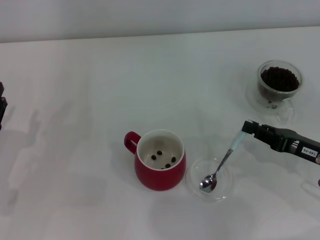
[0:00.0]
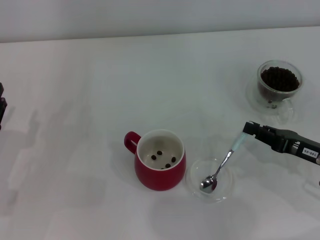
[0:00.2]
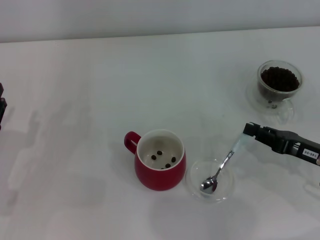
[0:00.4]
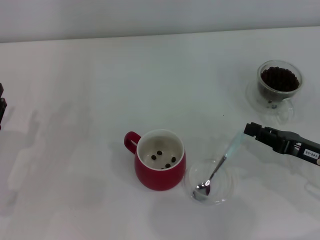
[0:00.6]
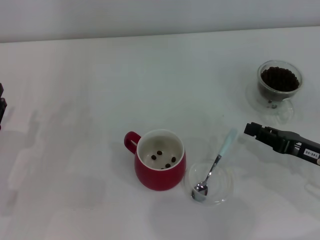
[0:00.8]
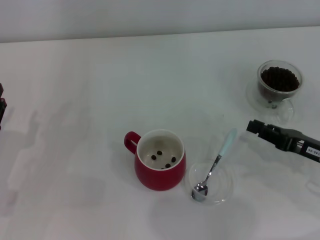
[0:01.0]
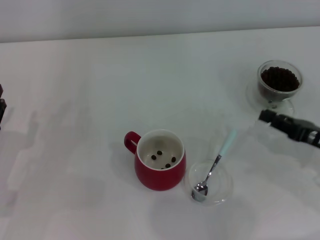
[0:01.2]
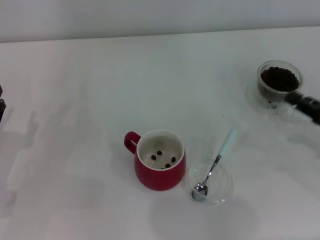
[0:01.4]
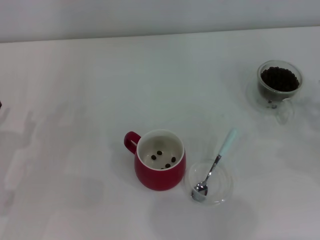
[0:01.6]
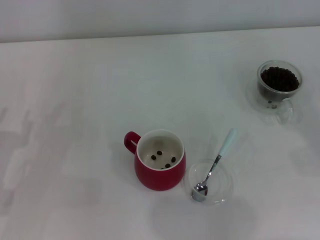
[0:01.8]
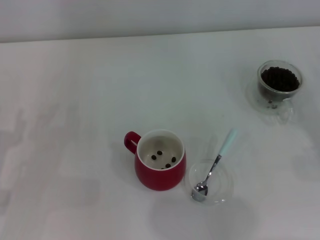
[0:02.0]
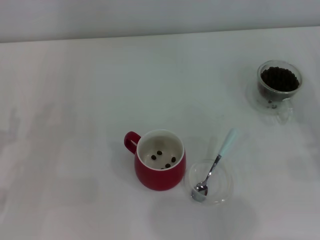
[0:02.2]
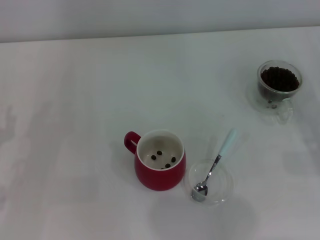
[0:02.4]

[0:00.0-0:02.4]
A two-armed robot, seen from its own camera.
Task of the whole recording: Use a blue spoon to take out the coffee beans from the glass and pour them into the red cup.
0:00.0 to 0:01.2: The grippers make only small movements.
0:01.2 to 0:02.4: The right gripper goes roughly 5 cm to the right.

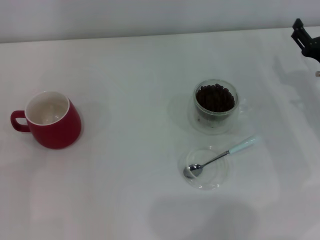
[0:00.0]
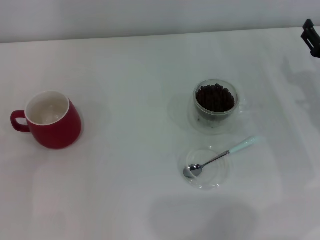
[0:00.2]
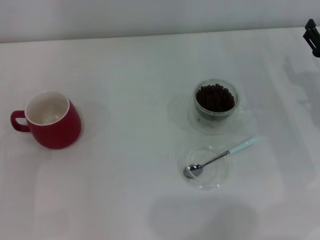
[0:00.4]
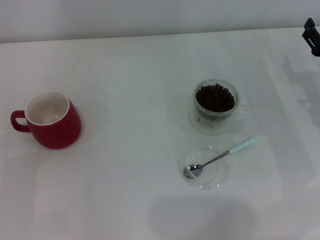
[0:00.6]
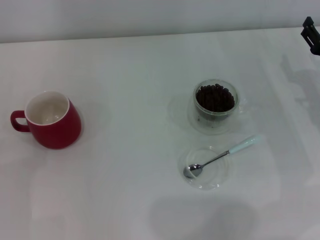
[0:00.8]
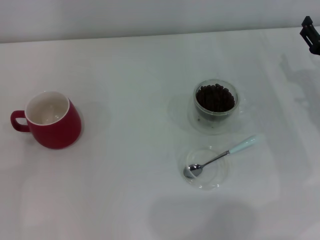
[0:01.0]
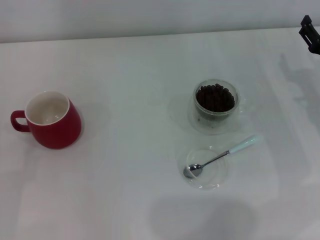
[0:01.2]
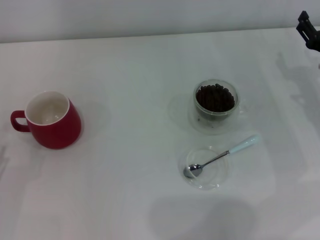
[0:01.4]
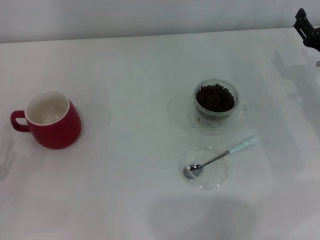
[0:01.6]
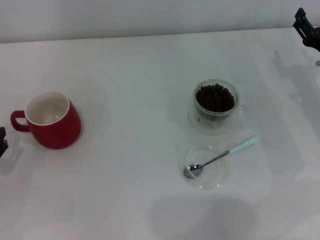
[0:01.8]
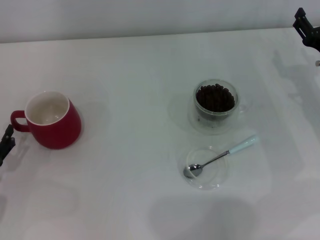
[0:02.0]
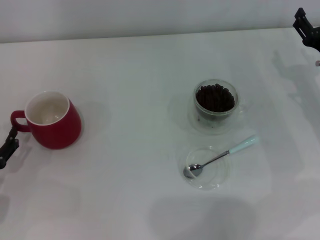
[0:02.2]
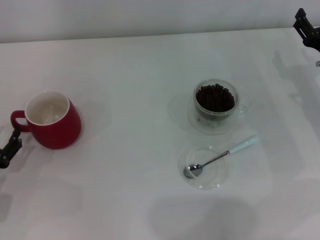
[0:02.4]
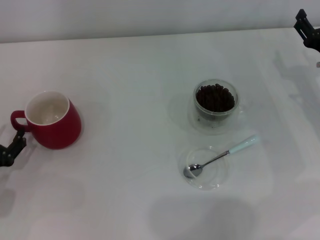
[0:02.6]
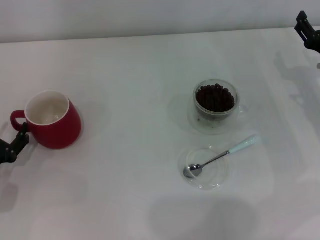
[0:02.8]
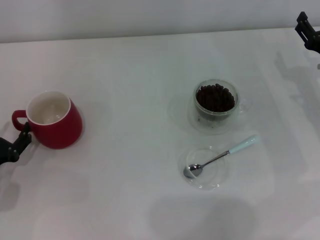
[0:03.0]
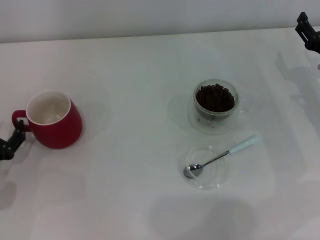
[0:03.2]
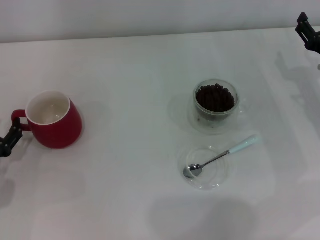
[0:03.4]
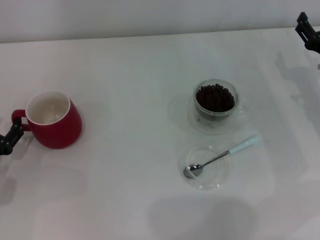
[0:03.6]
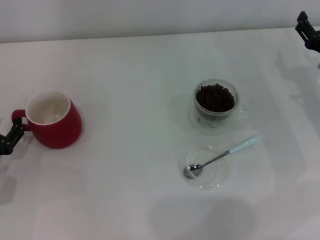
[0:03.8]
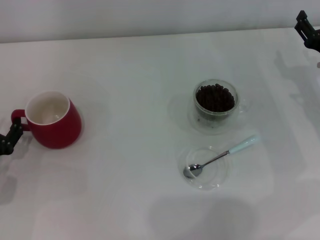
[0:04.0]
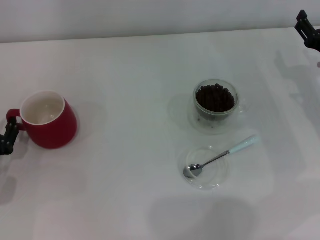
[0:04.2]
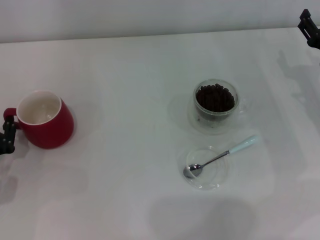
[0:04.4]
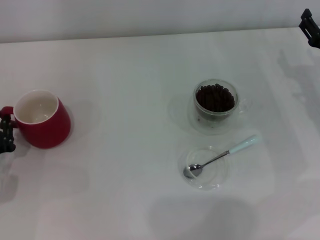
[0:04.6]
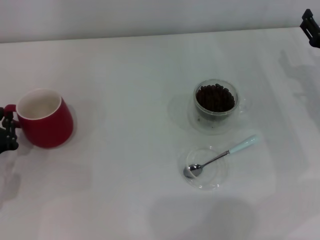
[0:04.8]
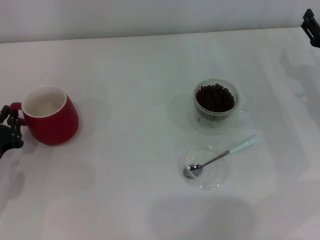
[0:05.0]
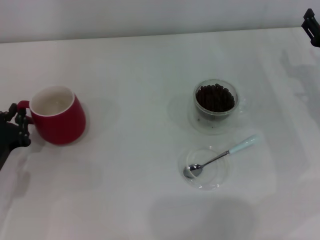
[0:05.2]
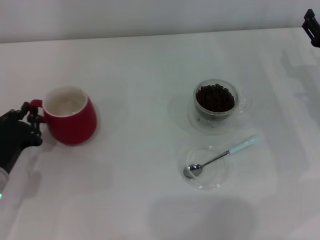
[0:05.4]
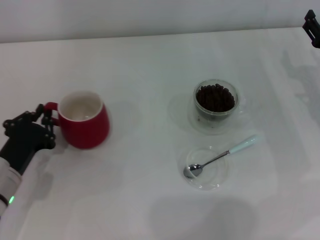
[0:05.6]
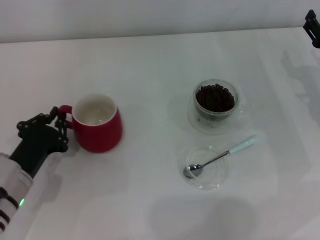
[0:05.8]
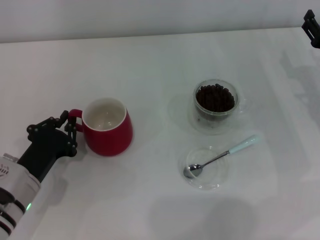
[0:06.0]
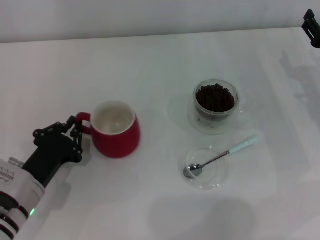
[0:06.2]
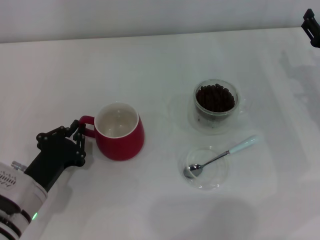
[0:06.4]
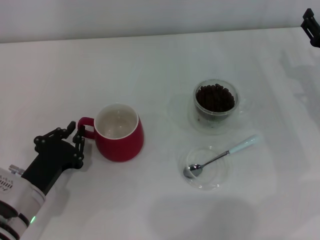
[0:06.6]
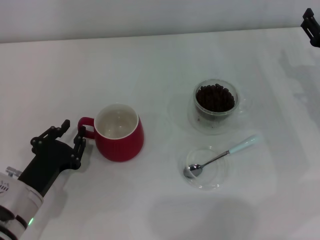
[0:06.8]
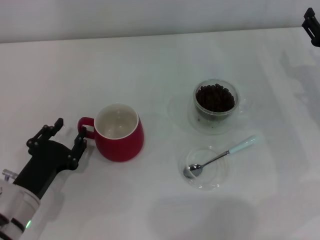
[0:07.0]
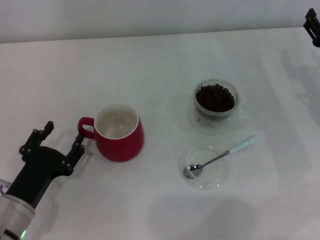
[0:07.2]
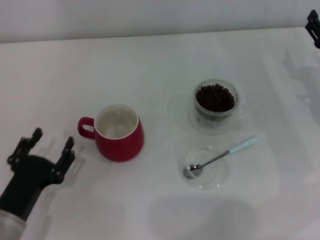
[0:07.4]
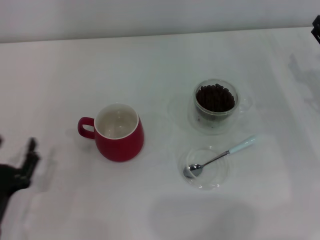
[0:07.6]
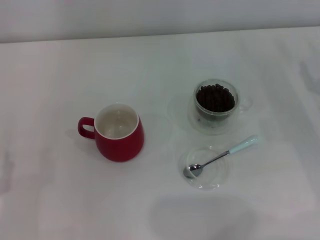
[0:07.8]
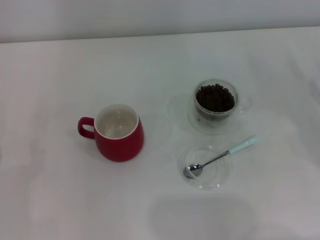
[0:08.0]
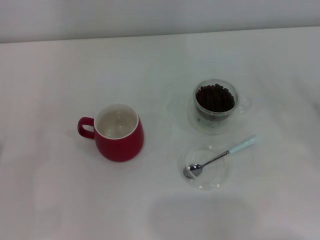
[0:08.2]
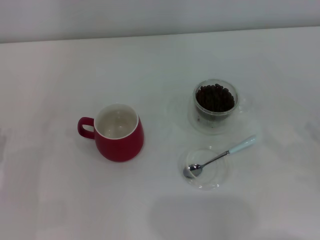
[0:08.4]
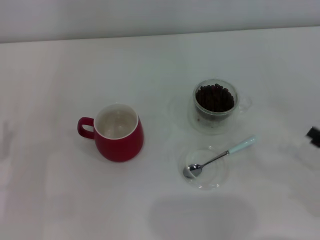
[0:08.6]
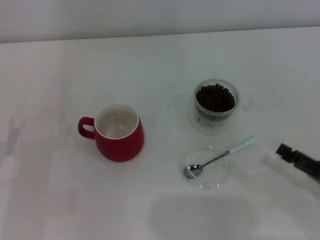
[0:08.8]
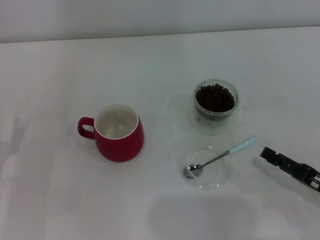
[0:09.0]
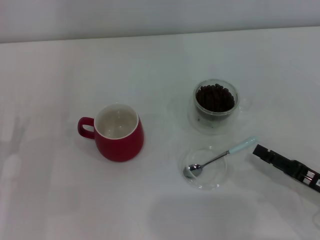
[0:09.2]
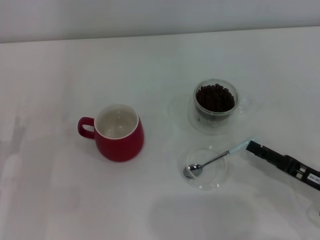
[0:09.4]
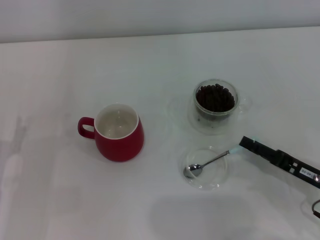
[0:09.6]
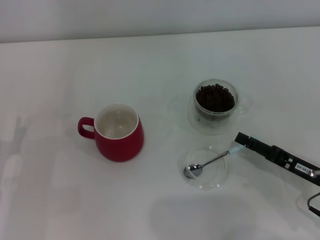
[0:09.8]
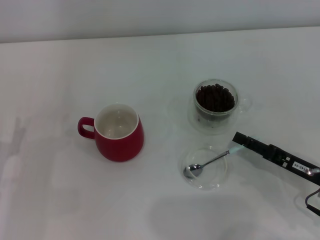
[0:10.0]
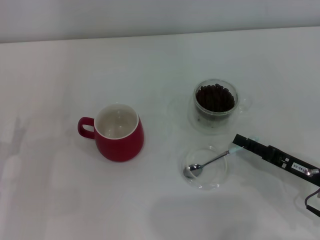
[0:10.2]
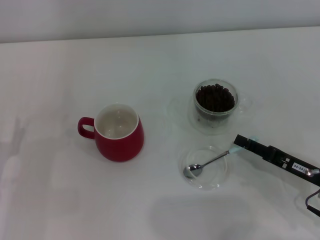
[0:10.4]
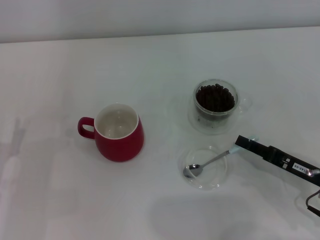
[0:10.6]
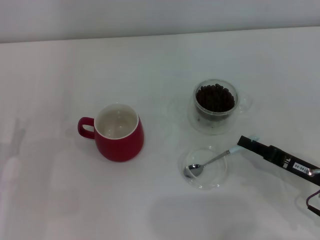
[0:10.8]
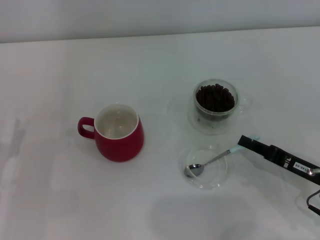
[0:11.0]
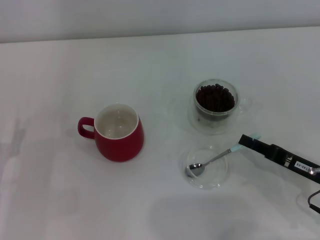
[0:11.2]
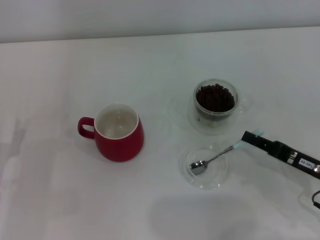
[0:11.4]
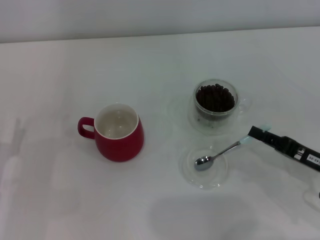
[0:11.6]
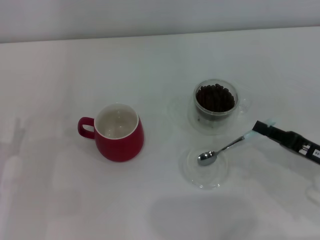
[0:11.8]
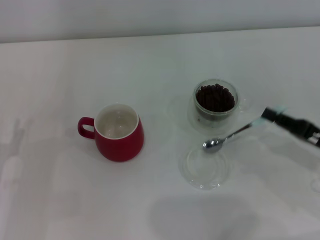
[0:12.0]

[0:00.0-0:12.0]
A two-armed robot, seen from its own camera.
Task of the whole recording: Use a blue spoon to take out the coffee beans from the glass and pour them into the red cup.
Step, 0:00.0 to 0:07.2: Move the cup to the center of view with the left gripper.
Step, 0:07.4 to 0:11.8: Pick up the spoon with the right gripper.
0:01.6 to 0:03.0: The left gripper changes place by some 5 cm.
0:03.0 to 0:04.4: The left gripper closes its fingers.
0:04.4 to 0:06.0: The left gripper moves to the right, roughly 10 cm, and closes its fingers.
0:06.0 to 0:07.6: The left gripper goes about 10 cm backward, and opens.
0:07.6 to 0:09.0: The left gripper travels forward by about 5 cm. The right gripper heads backward, covering some 15 cm.
0:09.0 to 0:10.4: The right gripper shifts by roughly 5 cm.
0:10.4 to 0:12.0: The right gripper ends up roughly 5 cm from where it was, and closes up.

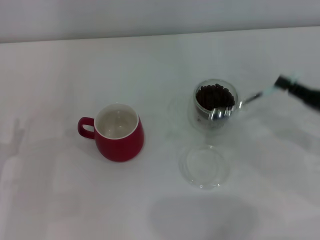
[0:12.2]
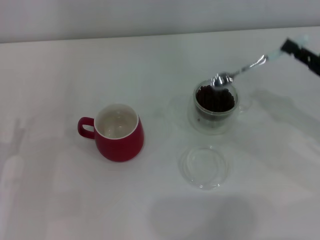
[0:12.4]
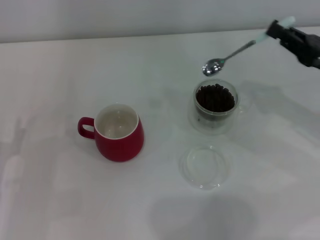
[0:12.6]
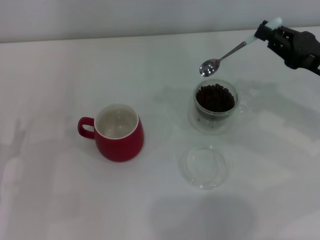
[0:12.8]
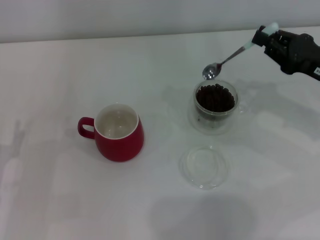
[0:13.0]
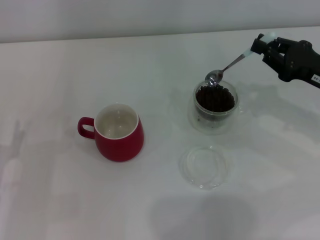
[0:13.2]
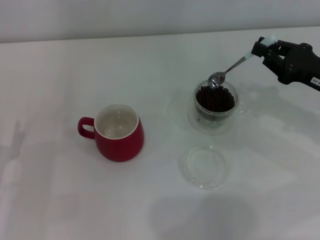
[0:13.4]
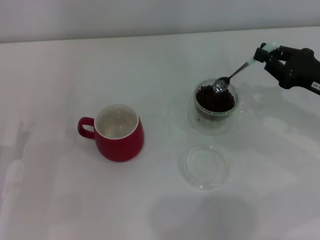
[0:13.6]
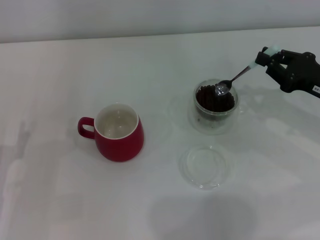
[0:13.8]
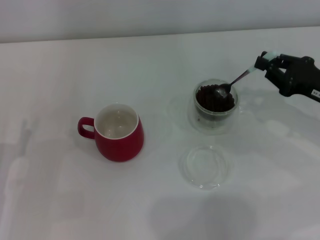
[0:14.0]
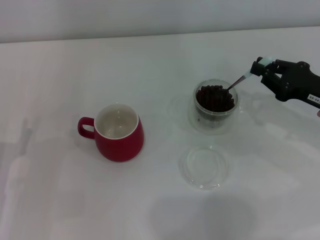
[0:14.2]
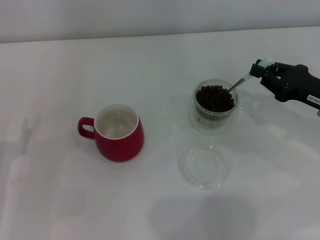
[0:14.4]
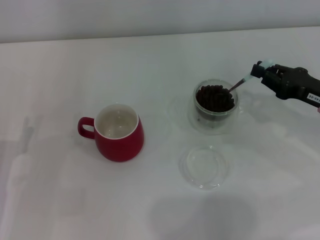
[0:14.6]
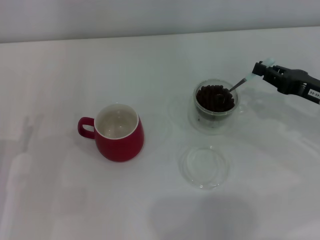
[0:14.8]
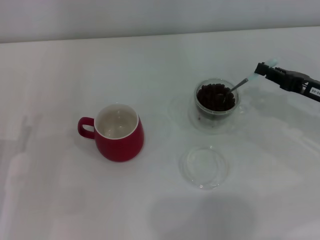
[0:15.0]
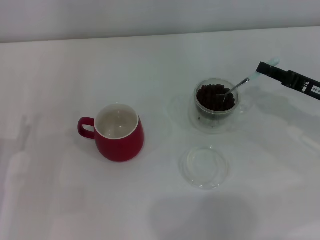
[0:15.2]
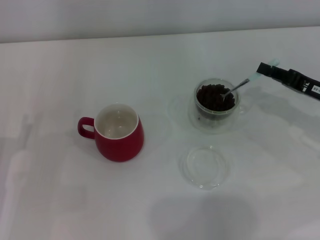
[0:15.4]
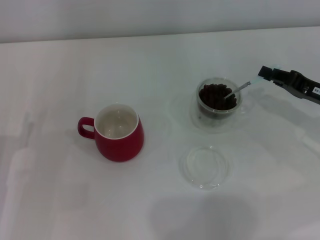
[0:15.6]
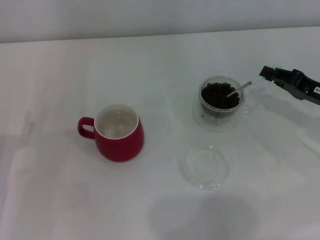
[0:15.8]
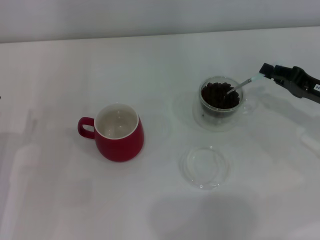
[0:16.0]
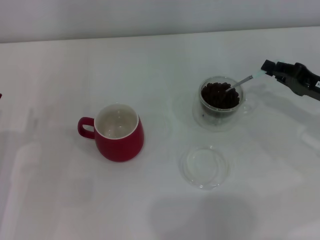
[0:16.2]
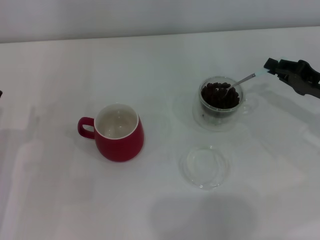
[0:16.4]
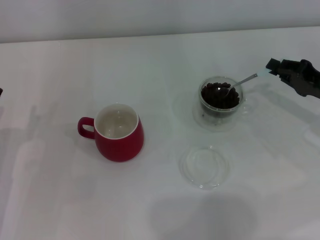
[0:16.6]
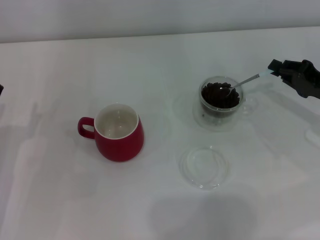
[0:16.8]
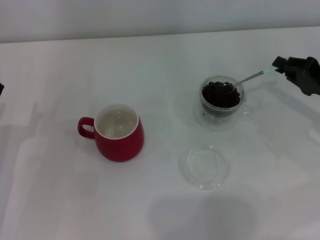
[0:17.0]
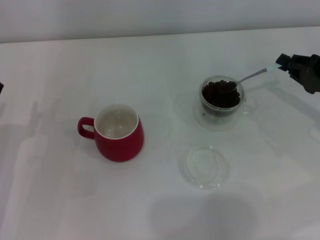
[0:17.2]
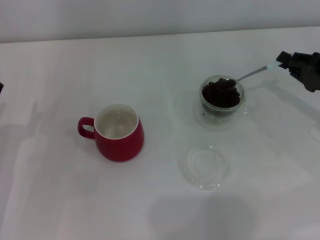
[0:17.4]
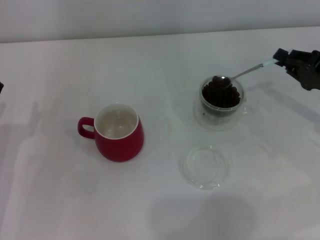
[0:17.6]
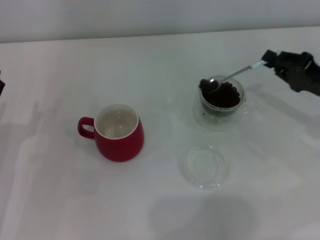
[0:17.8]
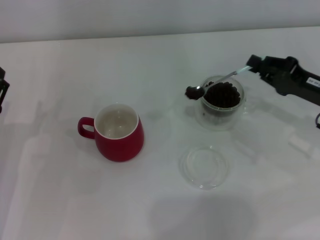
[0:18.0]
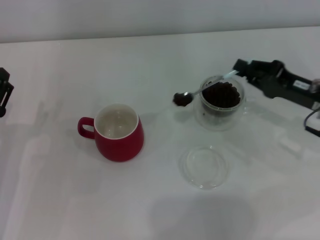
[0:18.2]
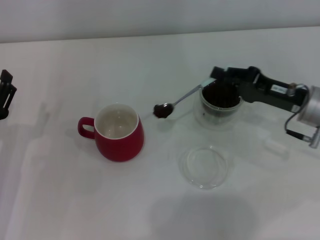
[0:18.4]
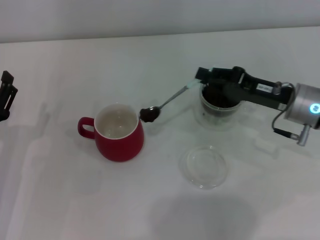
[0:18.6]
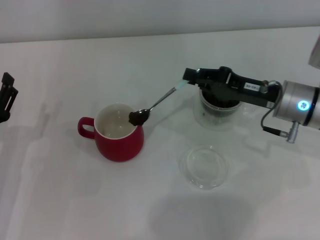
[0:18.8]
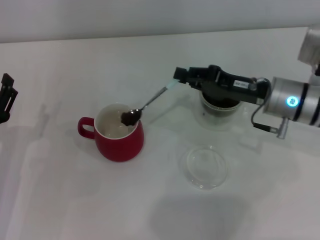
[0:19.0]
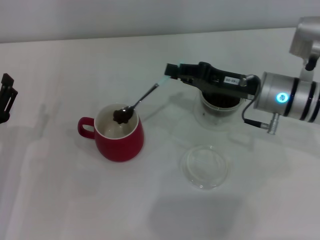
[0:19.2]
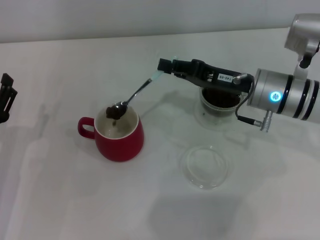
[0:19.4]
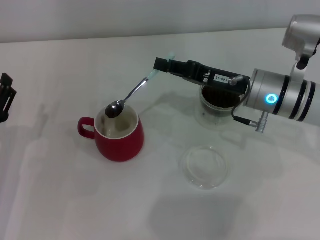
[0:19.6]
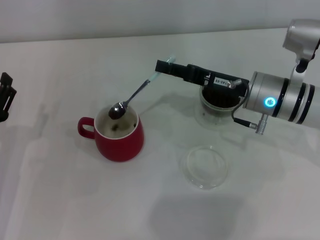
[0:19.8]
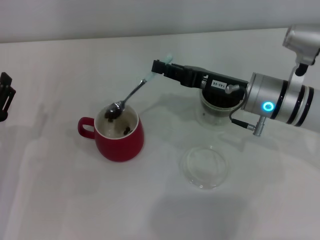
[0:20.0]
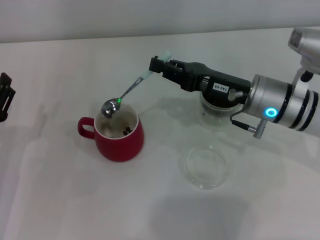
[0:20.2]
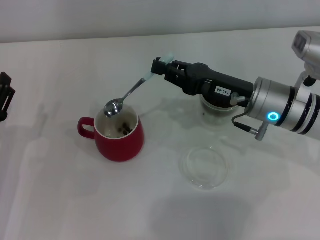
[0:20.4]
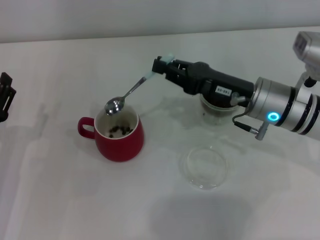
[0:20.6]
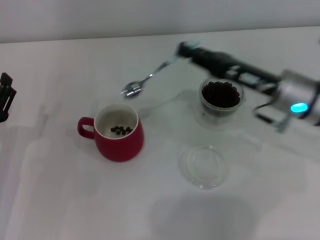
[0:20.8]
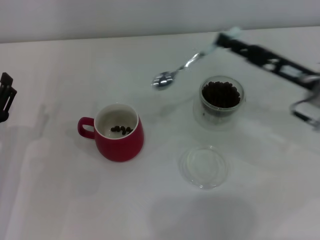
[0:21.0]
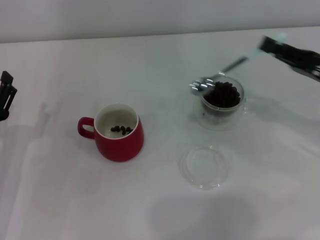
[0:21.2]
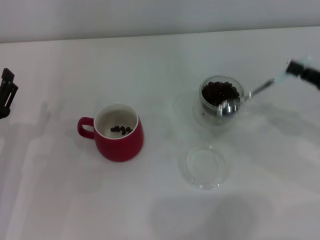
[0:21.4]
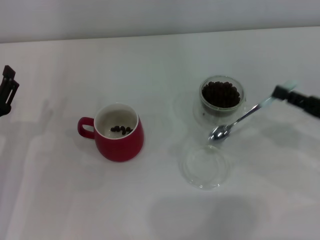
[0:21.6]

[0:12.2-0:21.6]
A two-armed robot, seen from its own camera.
Task of the whole recording: Use a blue spoon to take out the coffee beans from the glass and pour them into the red cup.
Step, 0:12.2 to 0:20.2: Scoop a spoonful of beans into the cup with the right gripper.
0:12.2 to 0:13.8: The right gripper goes approximately 5 cm forward.
0:17.0 to 0:18.4: The right gripper heads to the left, covering some 10 cm.
0:18.4 to 0:20.0: The right gripper shifts about 10 cm to the left.
0:20.0 to 0:21.6: The right gripper moves to the right and backward, roughly 20 cm.
